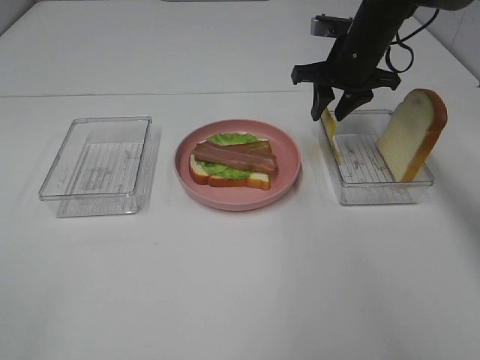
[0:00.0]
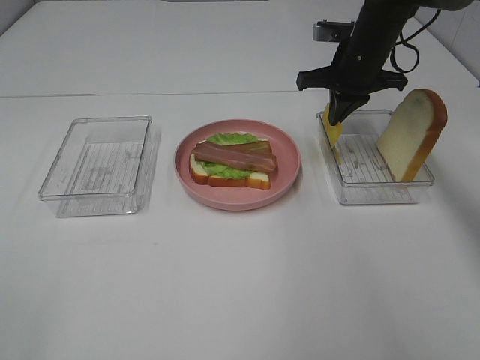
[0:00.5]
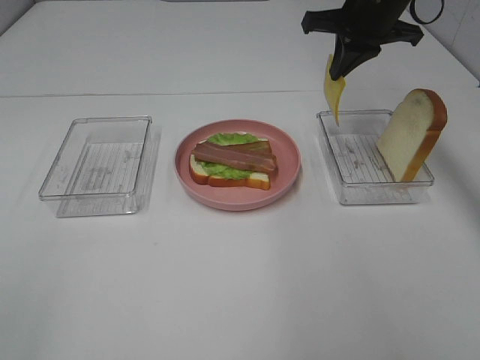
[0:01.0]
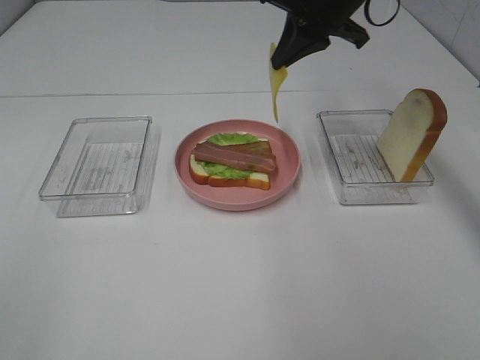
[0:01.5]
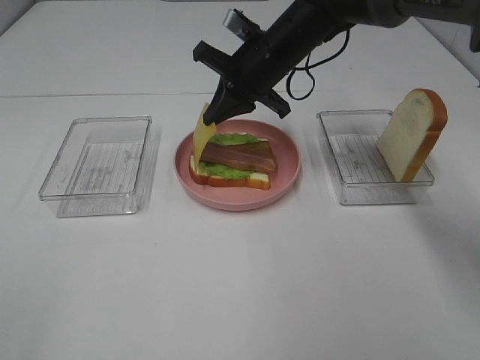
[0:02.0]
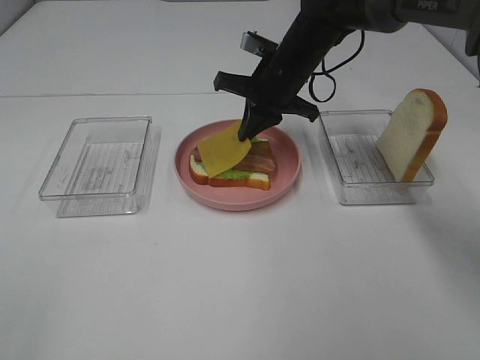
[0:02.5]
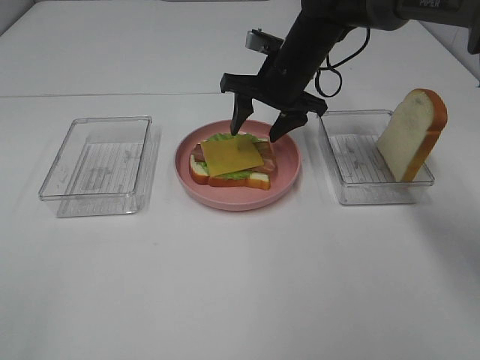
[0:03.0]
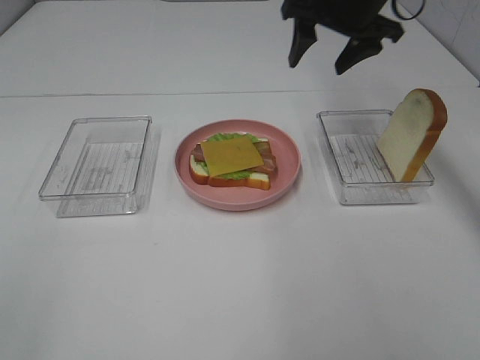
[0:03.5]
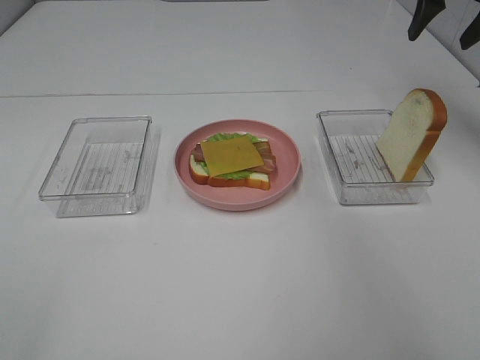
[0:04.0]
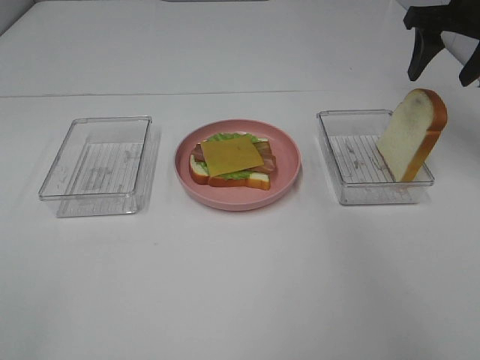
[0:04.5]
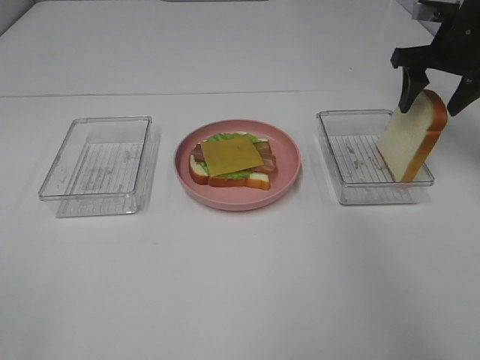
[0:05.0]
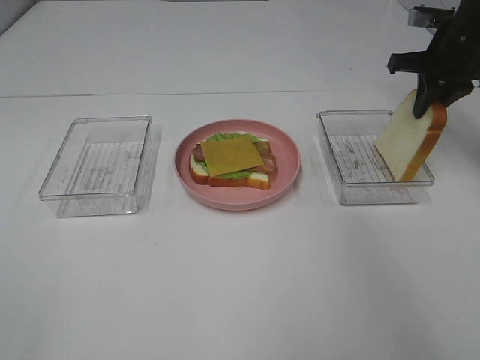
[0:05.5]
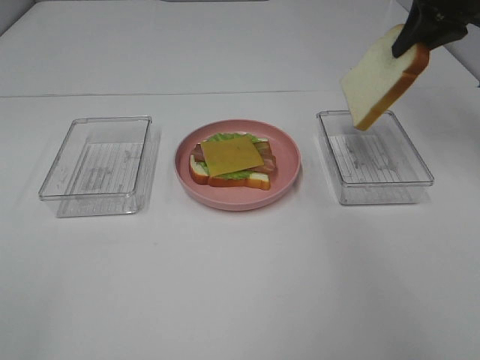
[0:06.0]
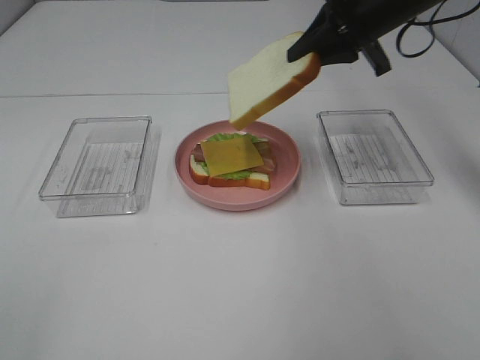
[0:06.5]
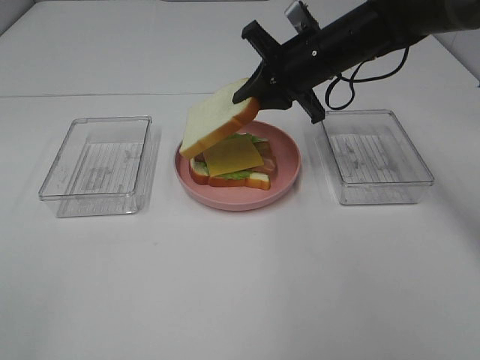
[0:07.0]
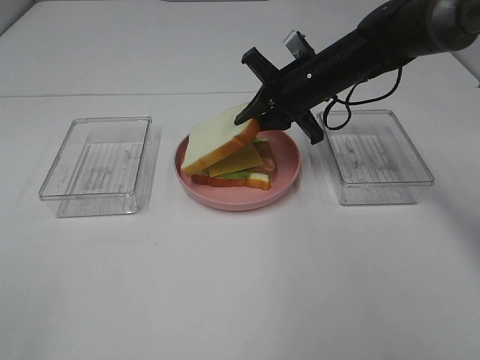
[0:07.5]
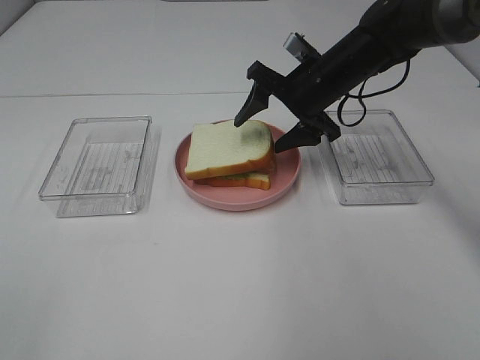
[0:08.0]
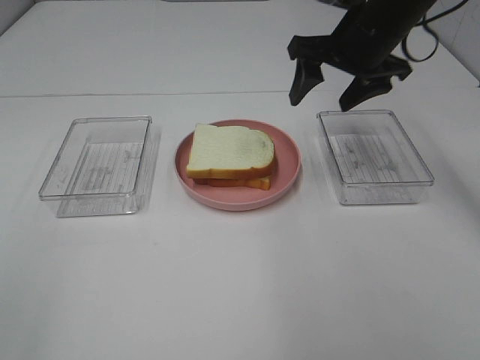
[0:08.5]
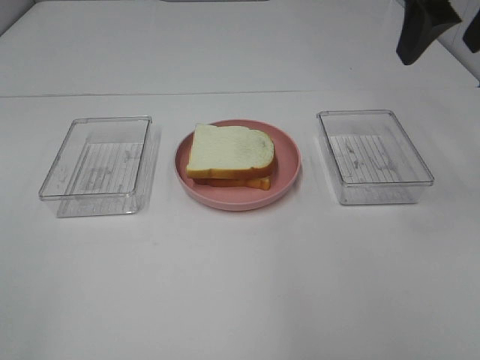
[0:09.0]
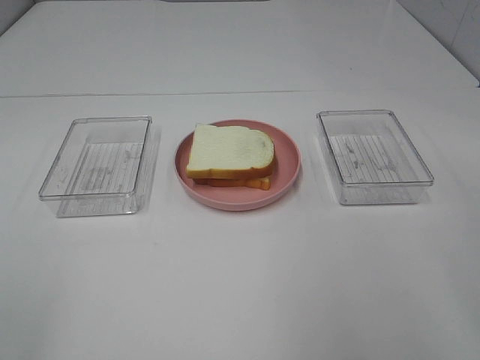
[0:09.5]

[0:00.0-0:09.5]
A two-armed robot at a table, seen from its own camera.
Task of the whole recording: Make sandwiches.
Step, 0:01.0 to 0:02.5: Right hand:place the cheese slice on top of the bacon.
Step, 0:03.0 to 0:05.0: Right hand:grab the bread slice.
Step, 0:05.5 to 0:08.0: Right hand:place the bread slice on the cheese slice.
0:00.0 to 0:02.0: The right gripper travels to the left by roughly 10 cm, and closes.
0:02.0 to 0:04.0: The right gripper shifts roughly 25 cm to the right and upward, and opens up.
0:04.0 to 0:05.5: The right gripper goes approximately 10 cm downward, and closes its fingers.
0:05.5 to 0:07.5: The right gripper moves to the left, some 20 cm.
0:07.5 to 0:09.5: The right gripper goes approximately 35 cm backward, upward and to the right, and opens up.

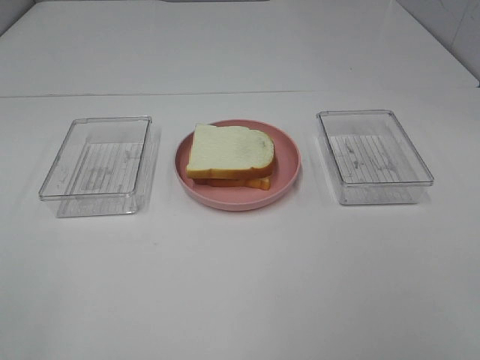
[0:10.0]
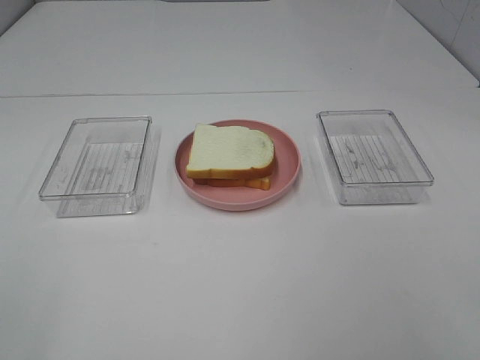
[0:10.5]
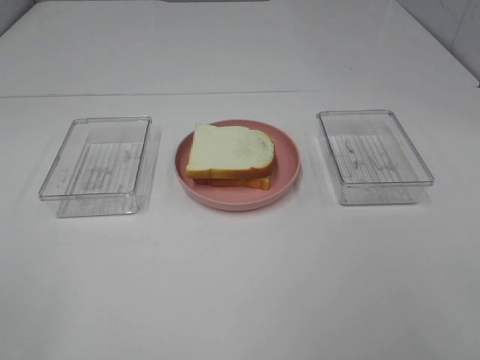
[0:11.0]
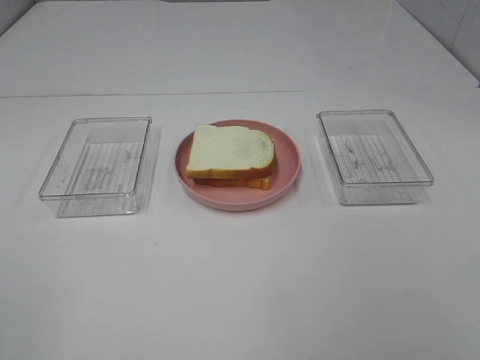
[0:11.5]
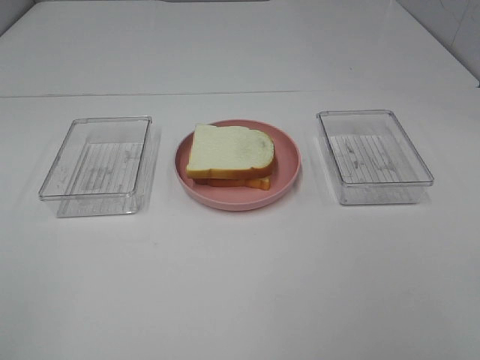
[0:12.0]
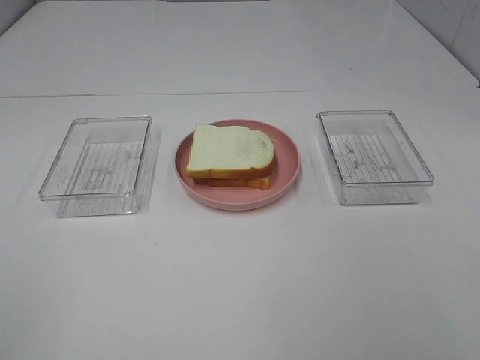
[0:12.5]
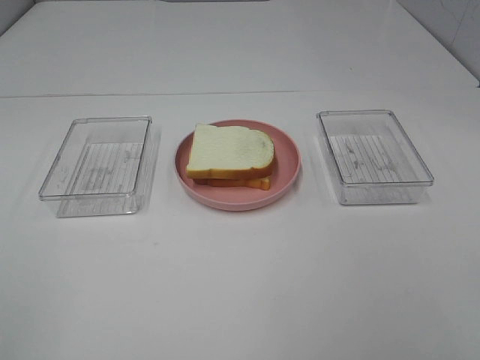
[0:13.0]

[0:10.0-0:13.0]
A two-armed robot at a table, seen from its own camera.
Task of the whole recording: Make sandwiches.
0:11.5 to 0:13.0: Both grippers stay put.

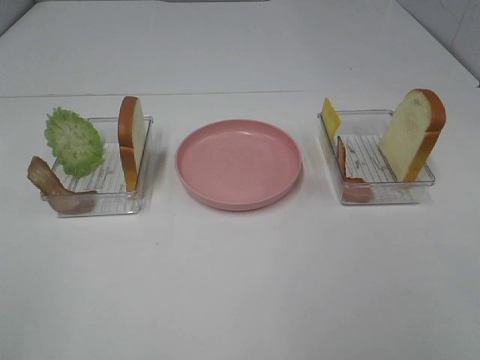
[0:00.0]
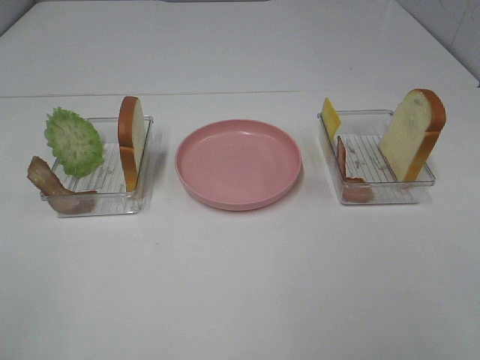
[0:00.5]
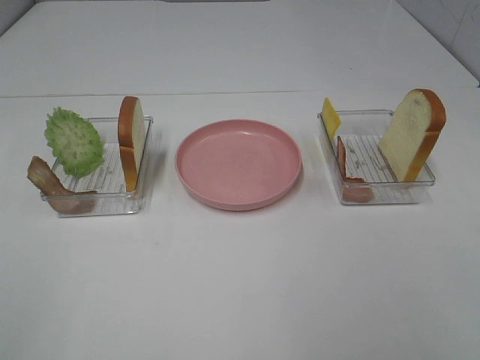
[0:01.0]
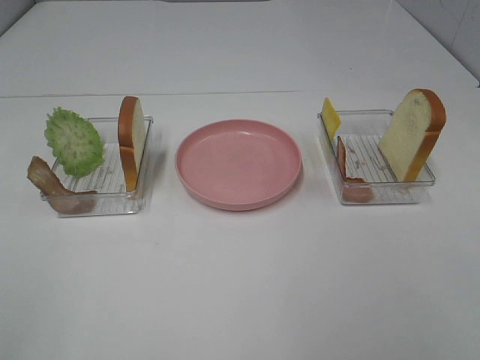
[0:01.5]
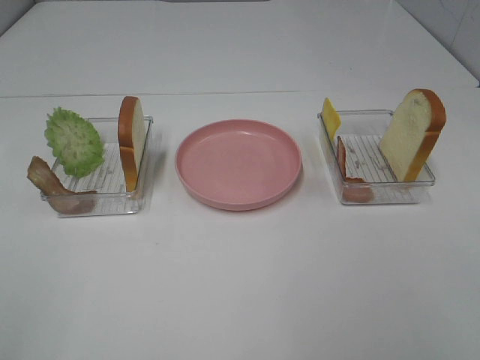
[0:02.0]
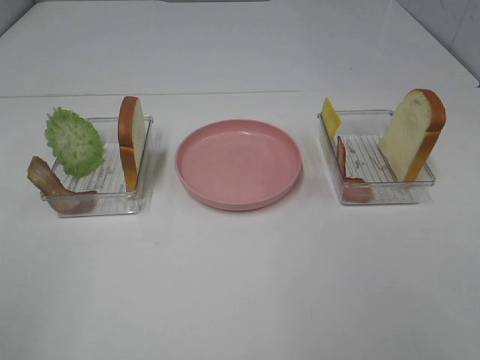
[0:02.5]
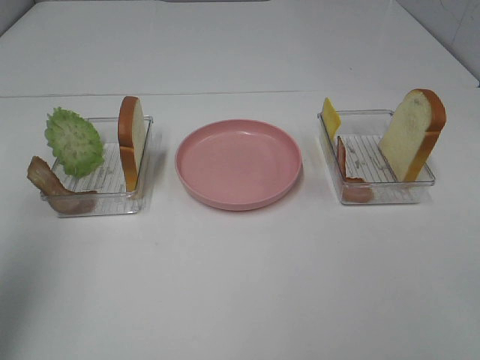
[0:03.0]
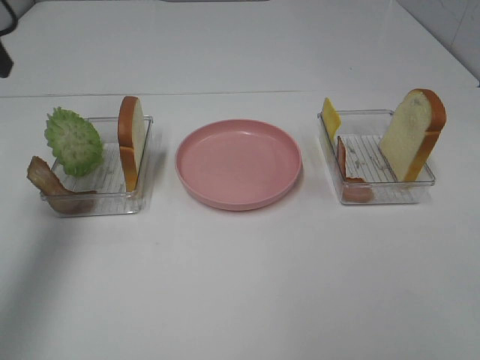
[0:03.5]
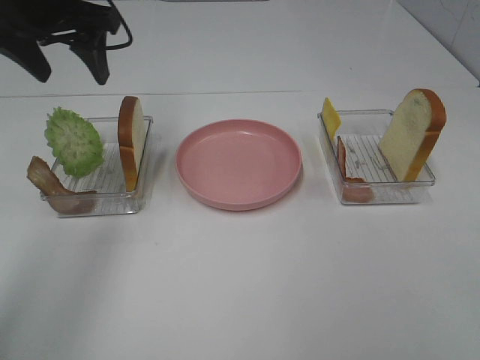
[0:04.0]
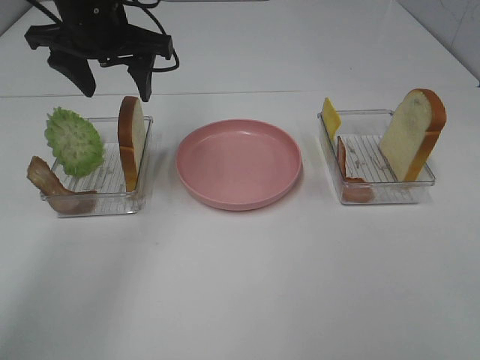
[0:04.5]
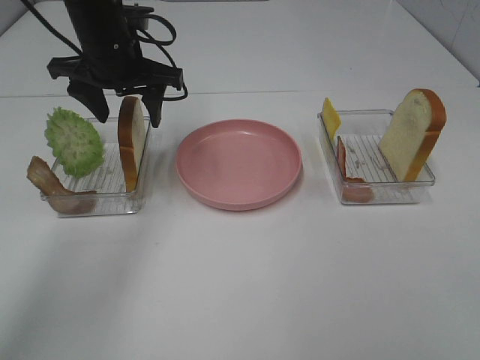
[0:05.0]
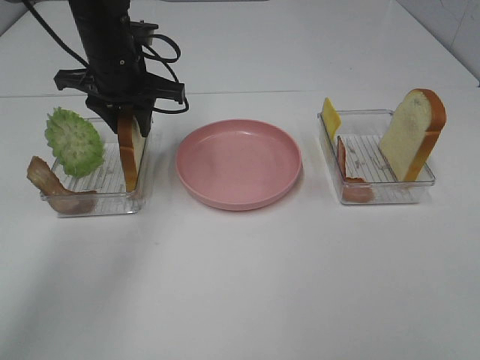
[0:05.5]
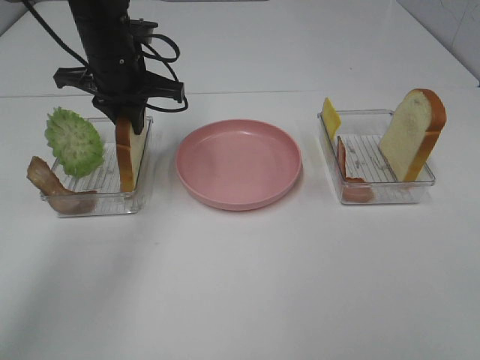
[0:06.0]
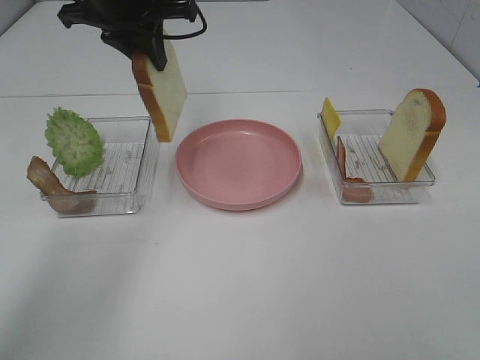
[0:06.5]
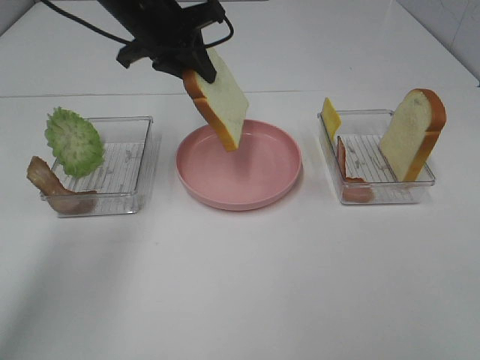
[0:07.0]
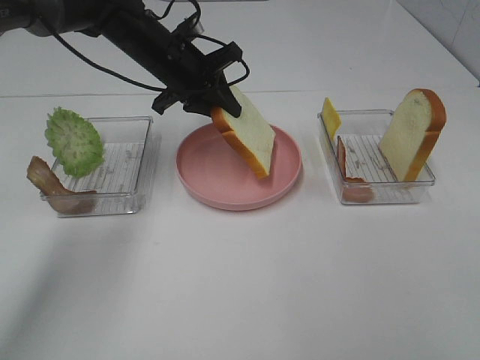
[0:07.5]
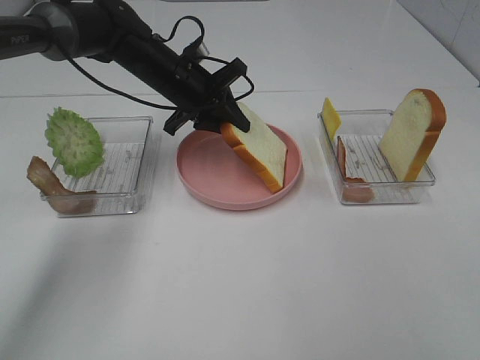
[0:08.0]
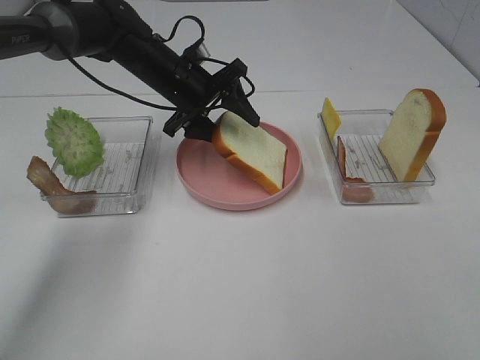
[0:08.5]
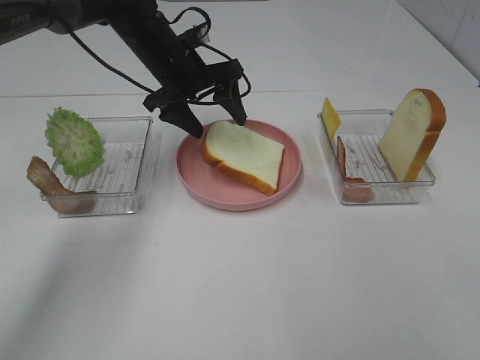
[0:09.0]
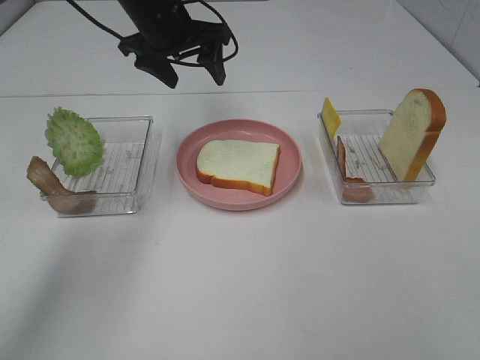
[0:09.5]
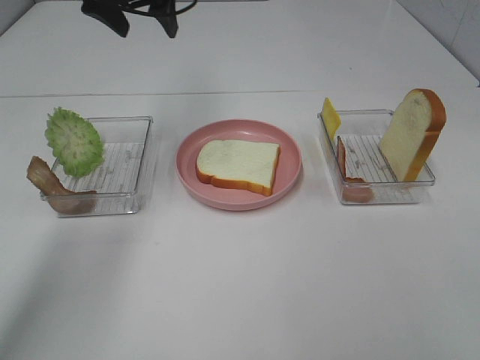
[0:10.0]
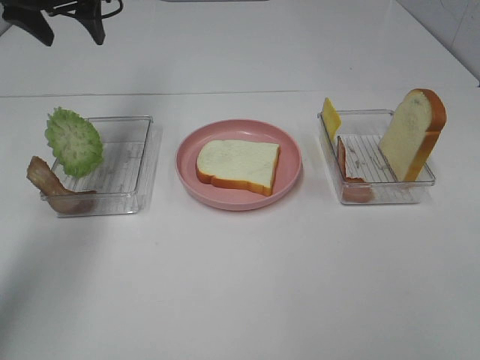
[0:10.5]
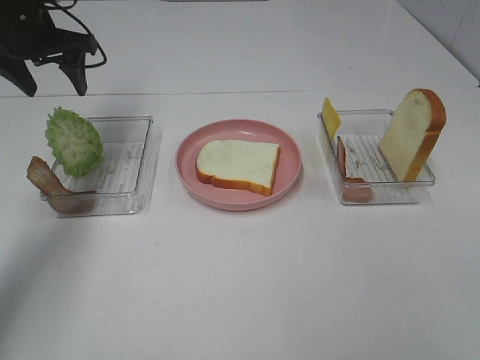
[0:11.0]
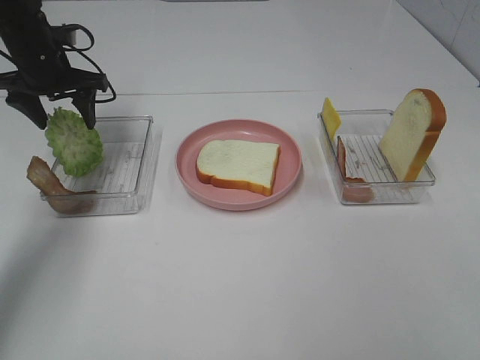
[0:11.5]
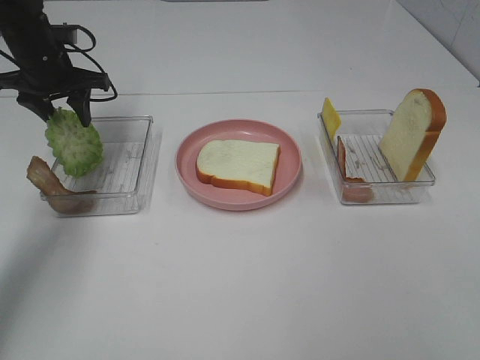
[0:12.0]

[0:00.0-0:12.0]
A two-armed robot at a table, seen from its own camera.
Task of the whole recording: Make sandwiches.
Step, 0:00.0 to 0:05.5: Left hand:grab the bread slice.
Step, 0:06.0 to 0:09.5: Left hand:place the bread slice on the plate.
0:00.0 to 0:02.0: The two grippers keep their place.
0:02.0 to 0:04.0: The left gripper heads forward, covering about 40 cm.
0:04.0 to 0:06.0: The left gripper travels downward and to the right by about 10 cm, and closes its fingers.
0:06.0 to 0:08.0: The left gripper shifts about 10 cm downward and to the right.
0:08.0 to 0:10.0: The left gripper travels upward and to the left by roughly 15 cm, and opens.
0:10.0 to 0:12.0: The left gripper moves downward and to the left, about 15 cm.

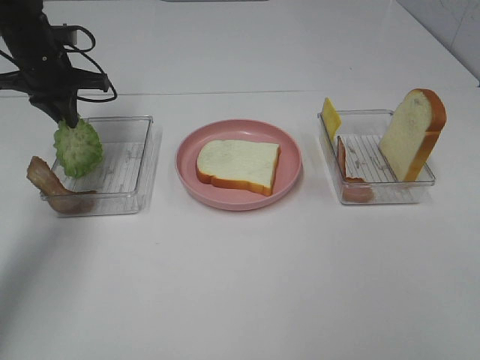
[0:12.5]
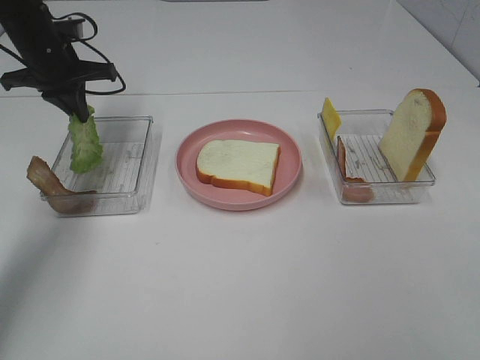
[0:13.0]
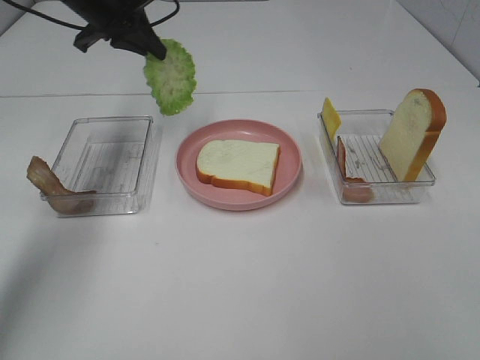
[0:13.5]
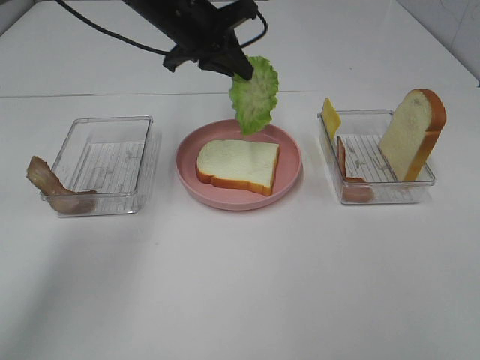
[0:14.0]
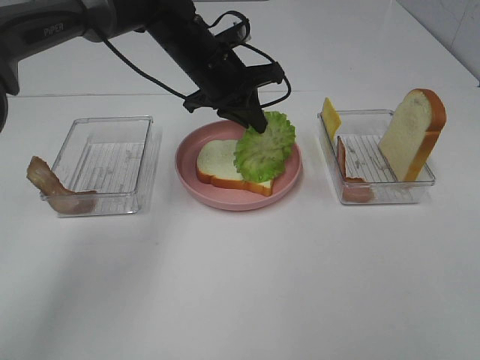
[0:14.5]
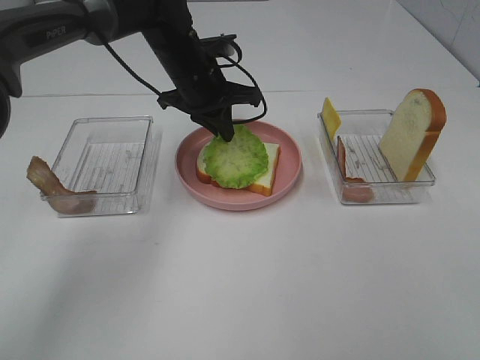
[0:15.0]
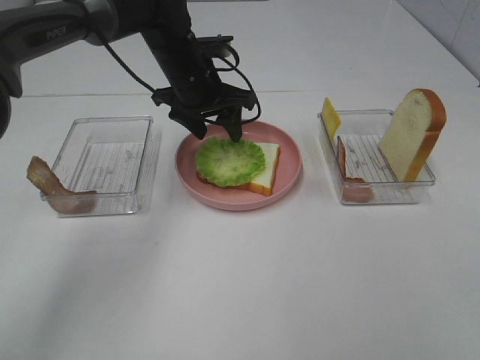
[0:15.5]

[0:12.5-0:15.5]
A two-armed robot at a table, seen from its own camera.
Task of the whole recording: Make sandwiches.
0:12.5 to 0:14.0: The left gripper heads to the right, covering roughly 20 cm.
0:14.0 to 0:15.5: The left gripper goes some 5 cm downward, and opens its fingers.
